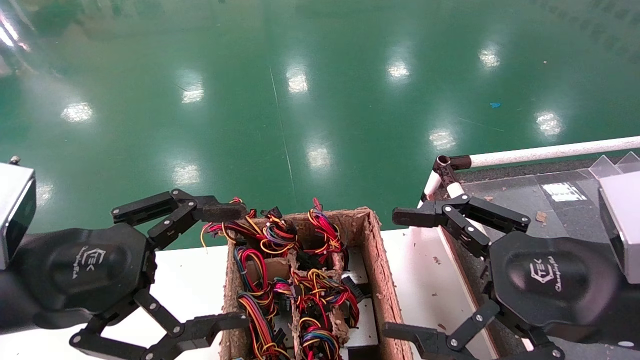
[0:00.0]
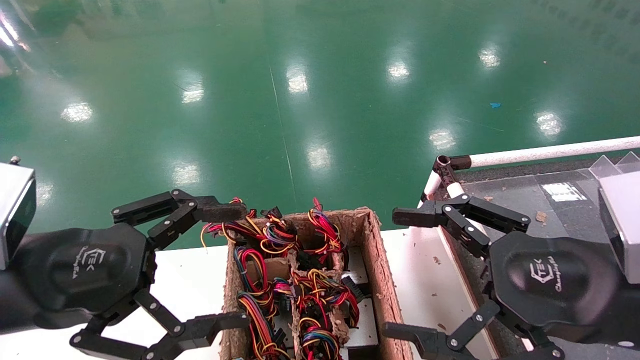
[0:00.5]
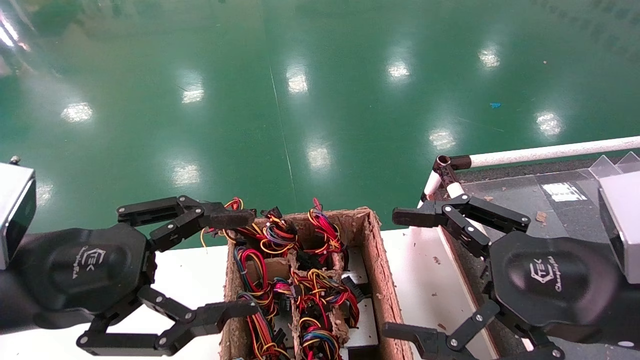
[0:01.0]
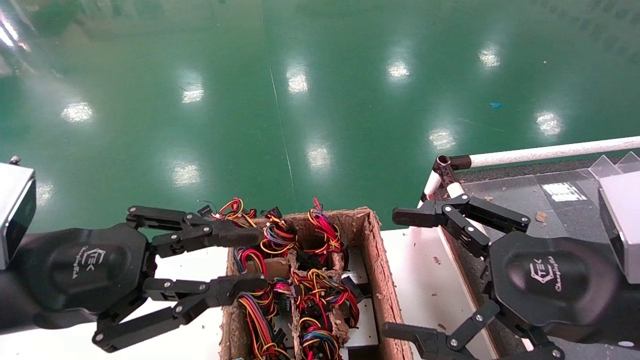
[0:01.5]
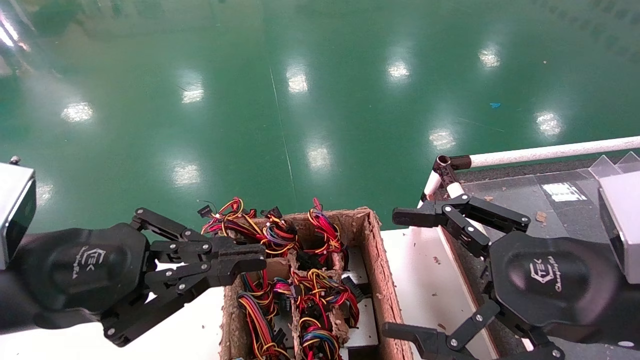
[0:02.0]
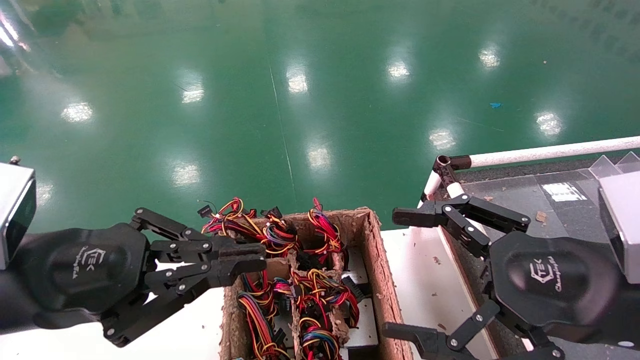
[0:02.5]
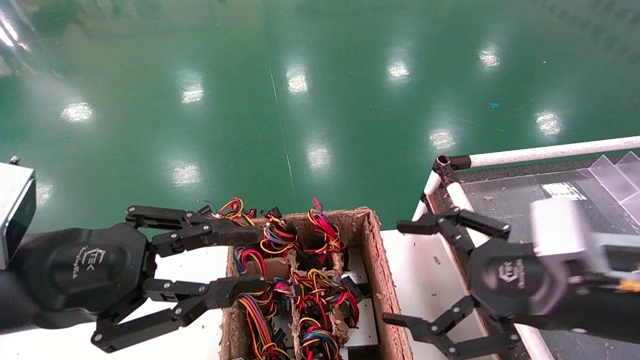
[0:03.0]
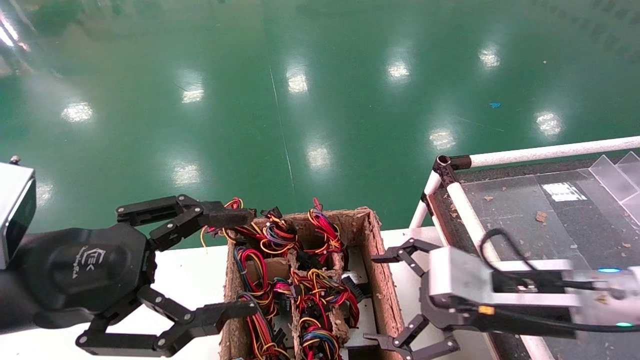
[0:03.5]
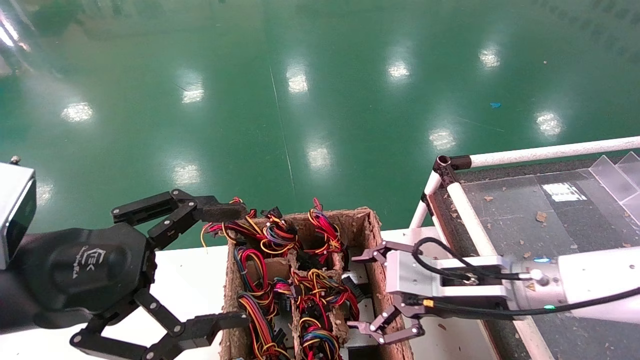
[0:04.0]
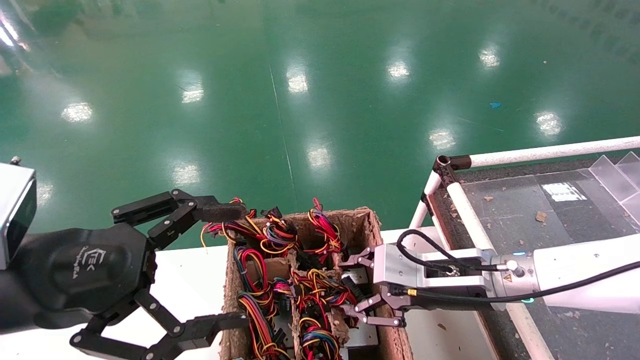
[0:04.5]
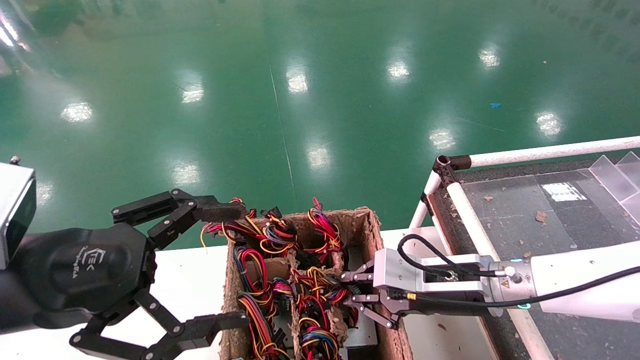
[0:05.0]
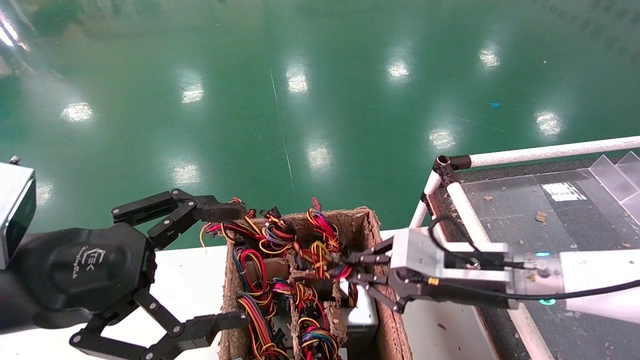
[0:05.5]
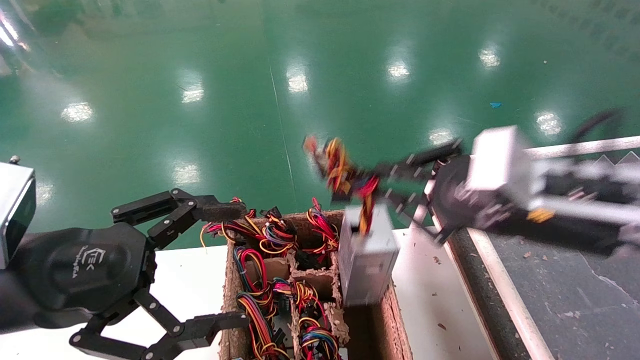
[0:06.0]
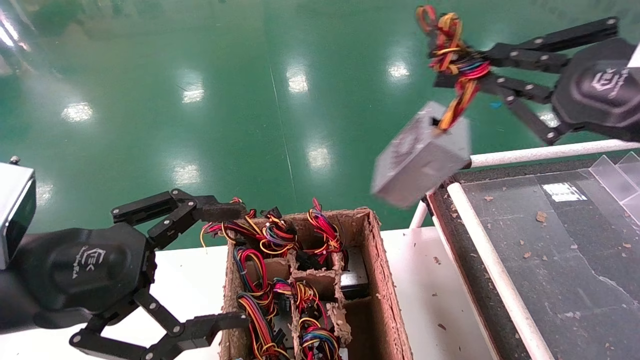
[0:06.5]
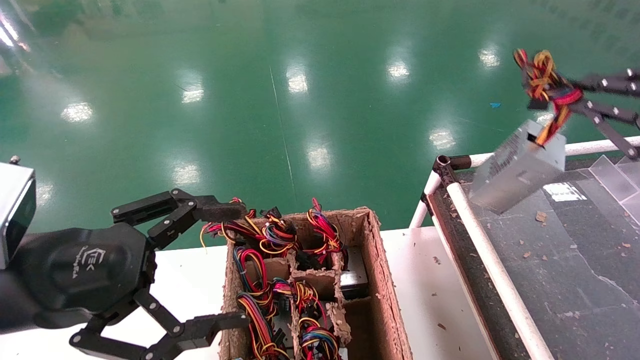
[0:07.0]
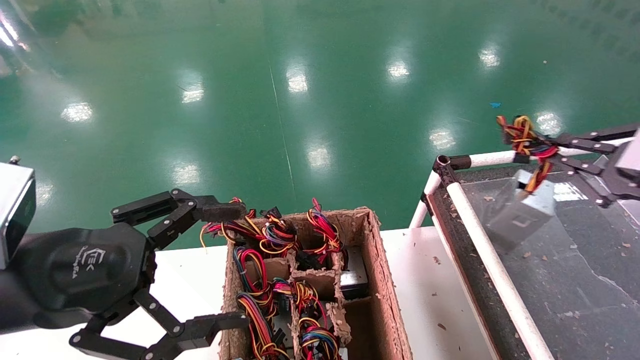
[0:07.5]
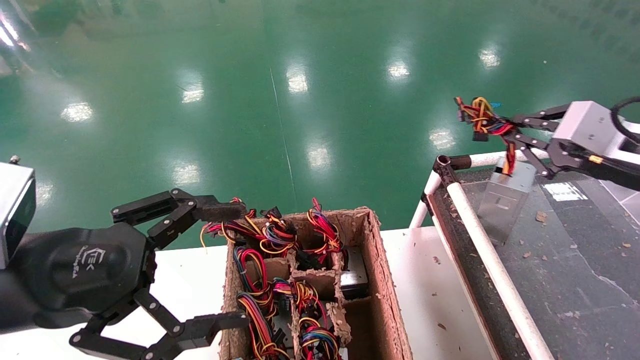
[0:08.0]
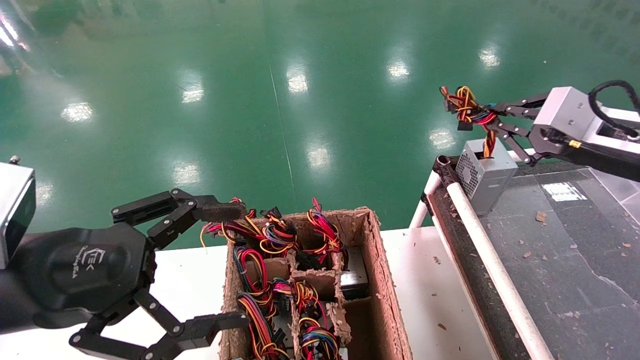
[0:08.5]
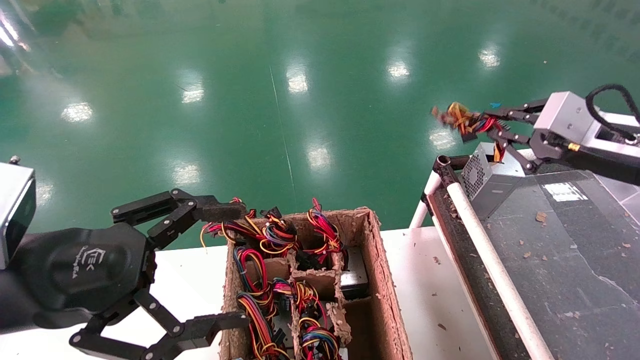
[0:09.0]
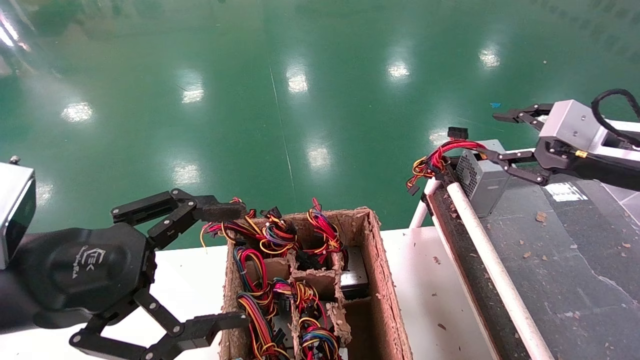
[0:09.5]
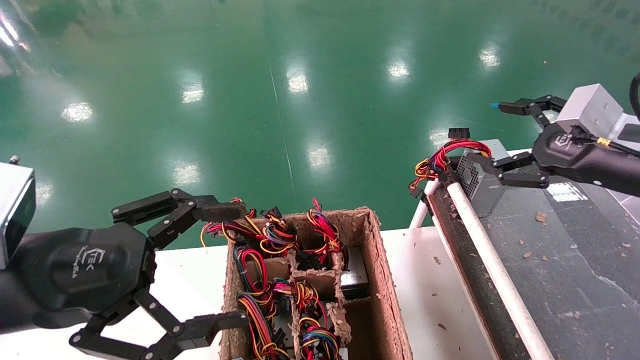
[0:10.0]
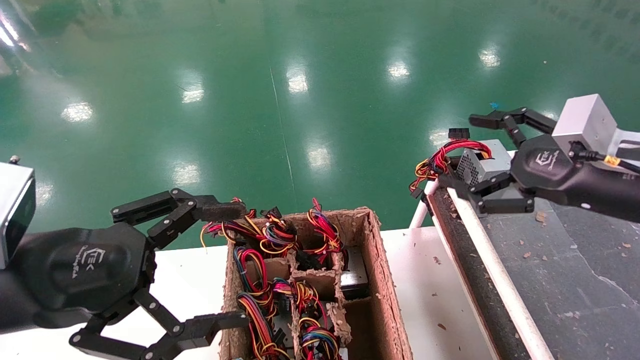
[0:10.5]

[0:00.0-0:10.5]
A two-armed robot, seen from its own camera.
Step, 0:03.0 to 0:05.0: Grab and lift the power supply from the large box.
Step, 0:05.5 to 0:09.0: Place the power supply on the operating table.
0:00.0 to 0:02.0: The left gripper closes up.
0:02.0 to 0:04.0: The right gripper travels forward, downward and to the left by about 15 cm; the left gripper opens its fingers.
0:04.0 to 0:06.5: The right gripper heads upward, to the right and backward, covering approximately 25 cm, and closes its fingers.
0:06.5 to 0:08.5: The right gripper shifts about 10 cm forward.
0:08.5 to 0:10.5: The right gripper travels backward by approximately 5 cm, and opens its fingers.
